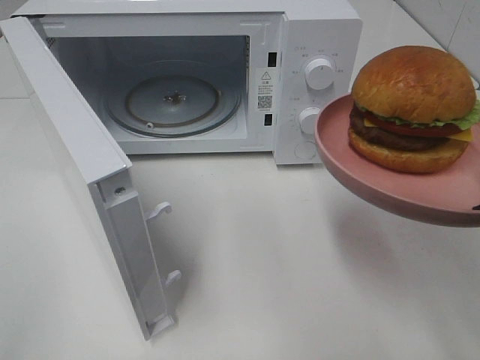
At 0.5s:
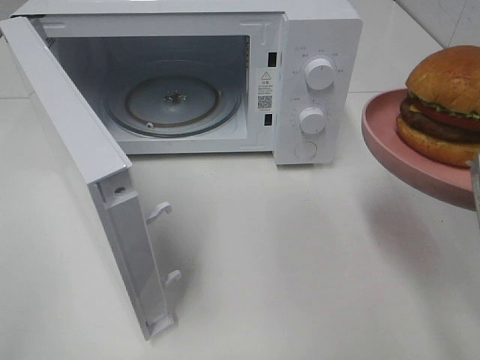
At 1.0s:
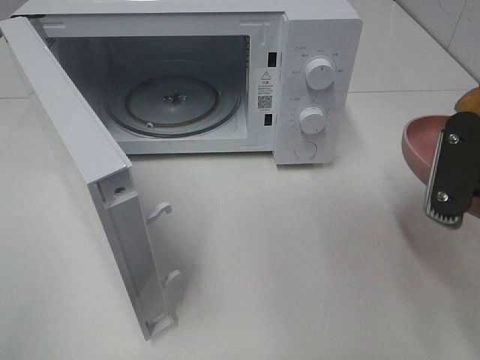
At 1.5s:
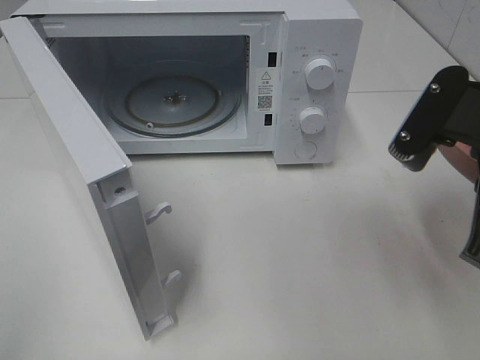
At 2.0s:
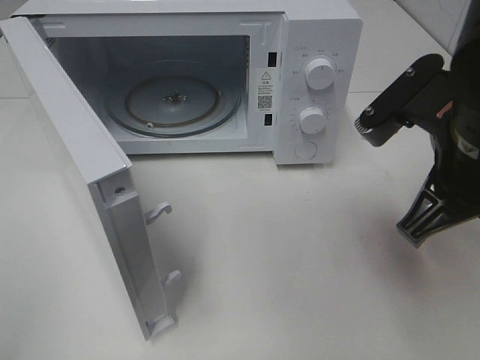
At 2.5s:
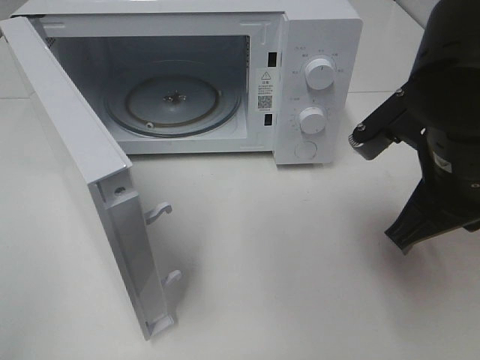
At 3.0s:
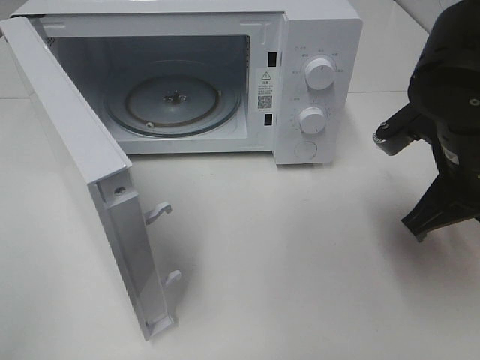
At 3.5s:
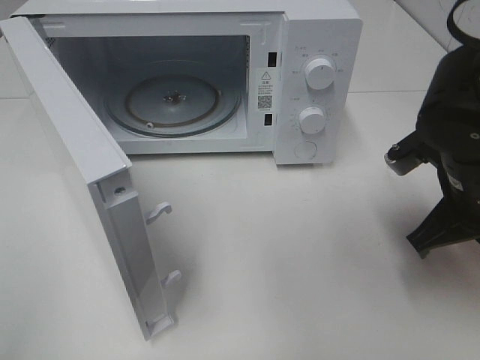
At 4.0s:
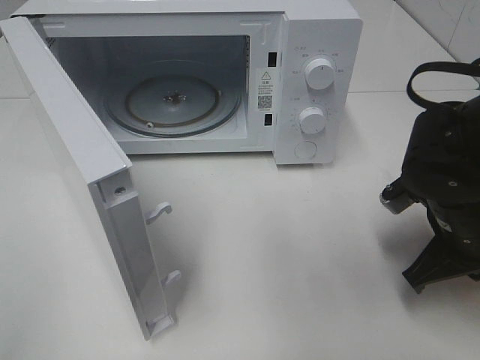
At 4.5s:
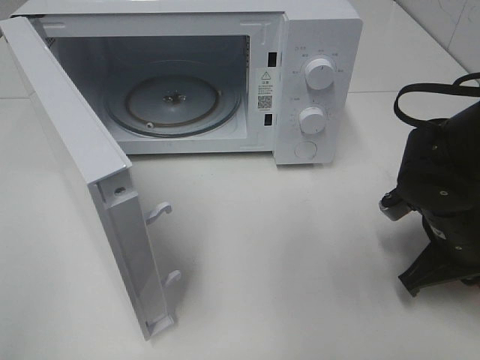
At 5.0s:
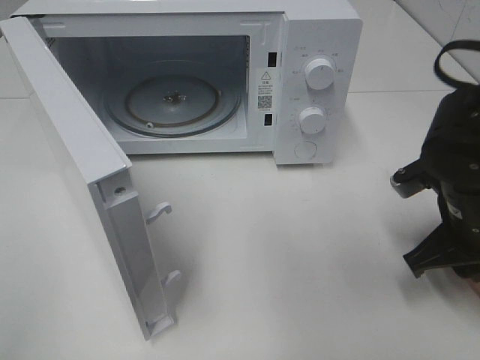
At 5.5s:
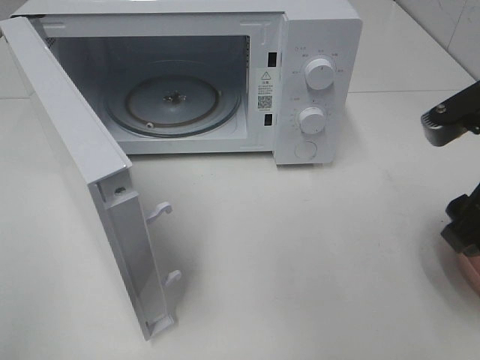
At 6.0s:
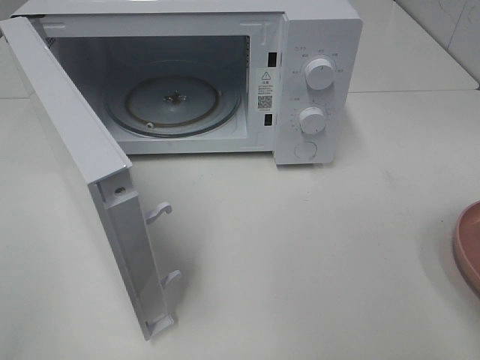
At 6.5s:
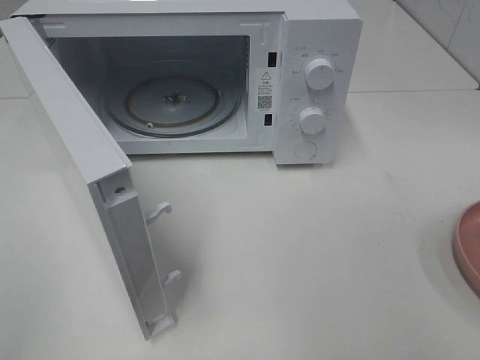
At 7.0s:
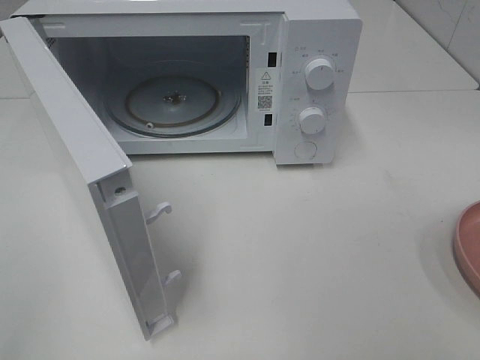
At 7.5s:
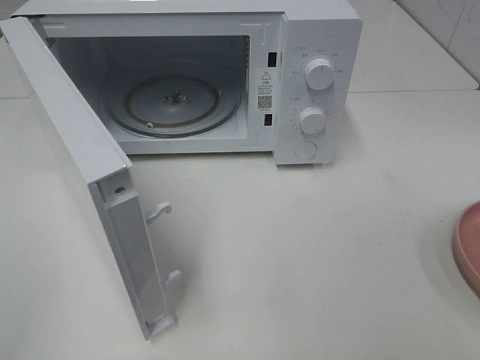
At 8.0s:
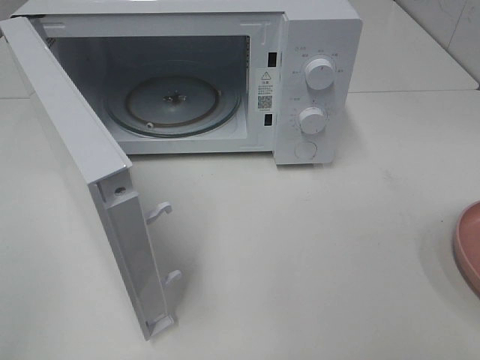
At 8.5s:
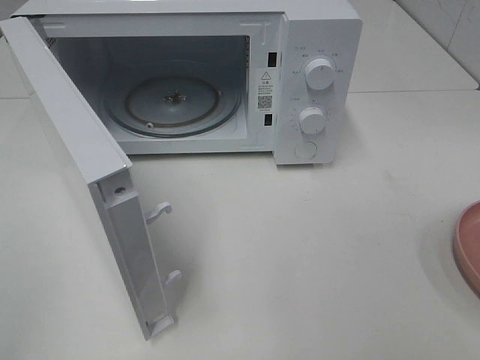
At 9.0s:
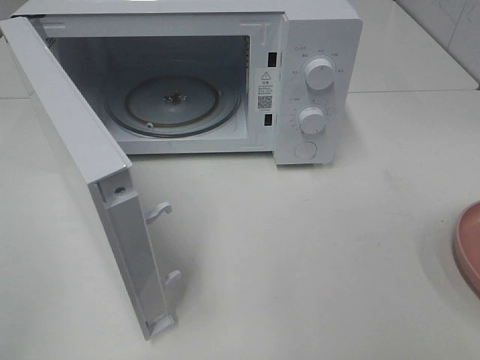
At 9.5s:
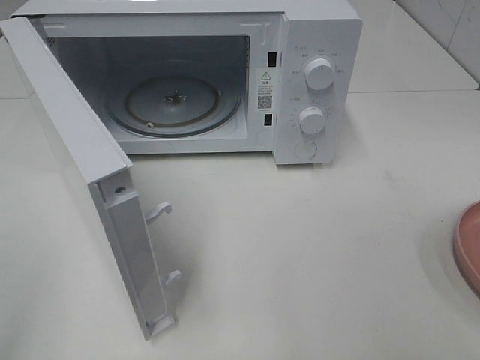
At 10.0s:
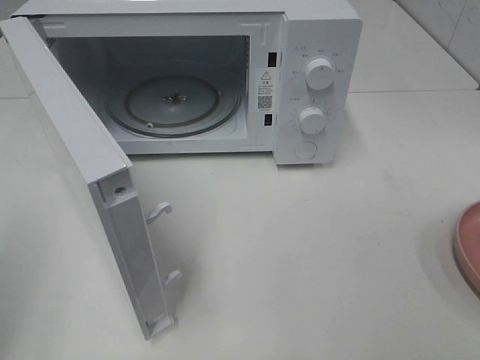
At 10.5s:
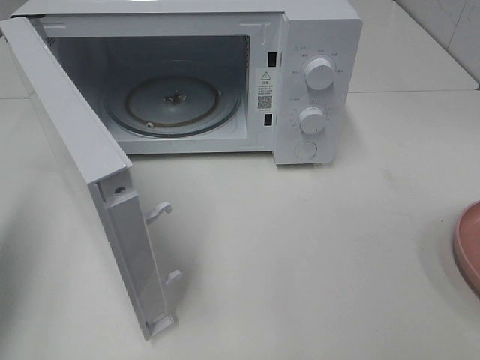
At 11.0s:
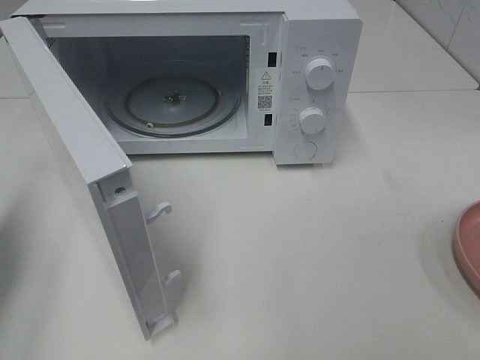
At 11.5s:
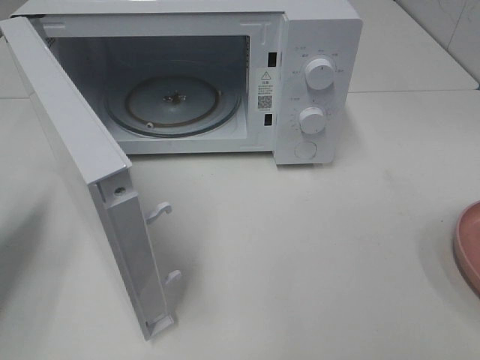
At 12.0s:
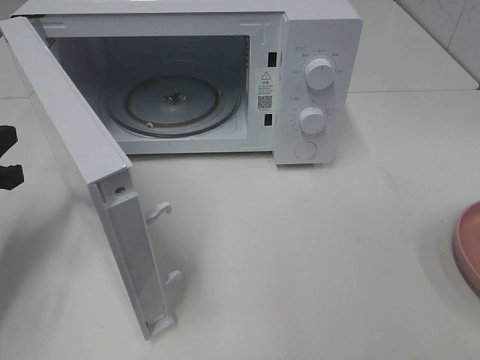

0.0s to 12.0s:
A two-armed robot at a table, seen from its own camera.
Task of the whole recording: Heat the burger.
Step, 0.0s to 5.0s: Right hand: place the plate on the table.
0.0s to 2.0s: The right gripper goes about 10 cm forward and to the left.
2.0s to 4.0s: The right gripper shifts roughly 10 cm downward.
4.0s to 6.0s: The right gripper moves upward and backward, some 20 cm, and opens its fingers.
10.0s to 12.0s: The left gripper goes some 25 cm forward and downward.

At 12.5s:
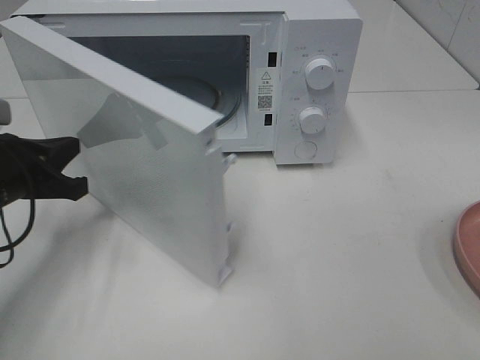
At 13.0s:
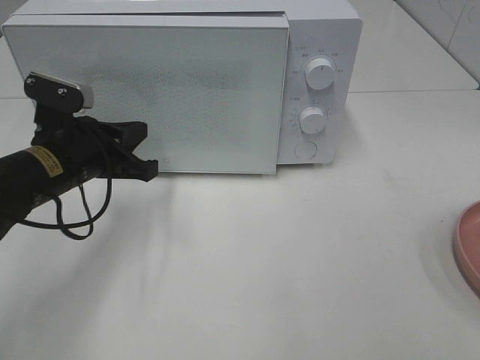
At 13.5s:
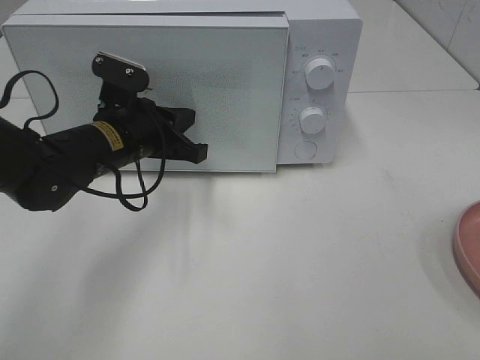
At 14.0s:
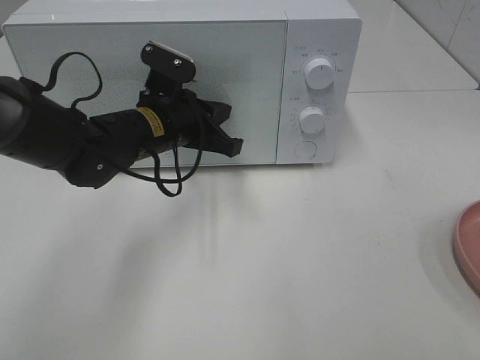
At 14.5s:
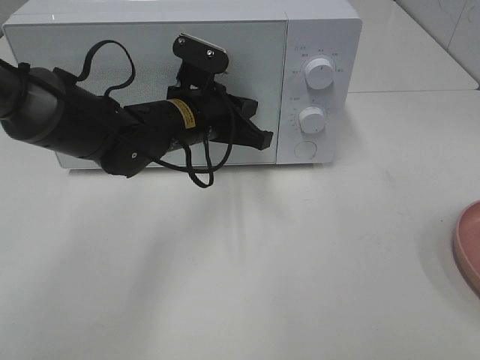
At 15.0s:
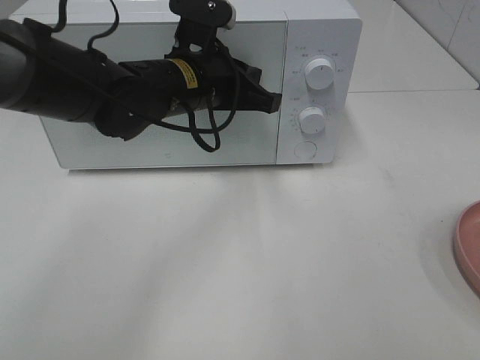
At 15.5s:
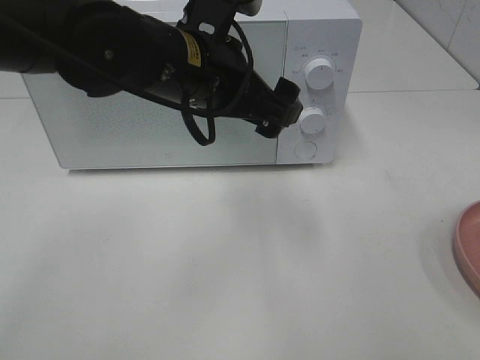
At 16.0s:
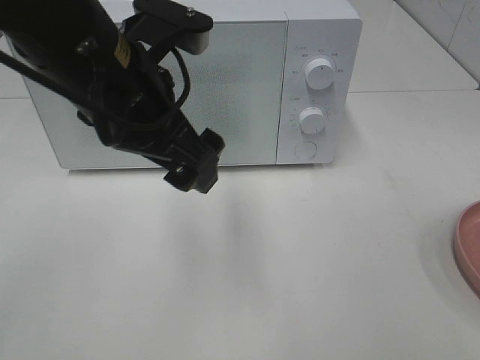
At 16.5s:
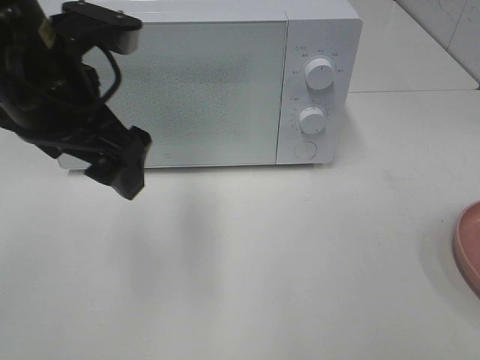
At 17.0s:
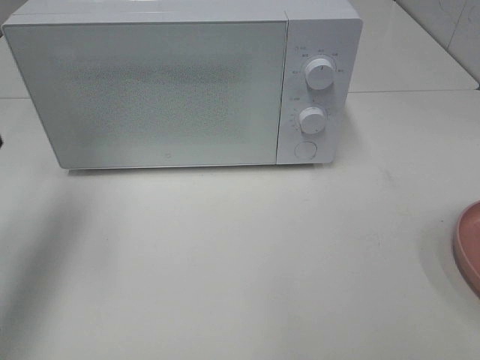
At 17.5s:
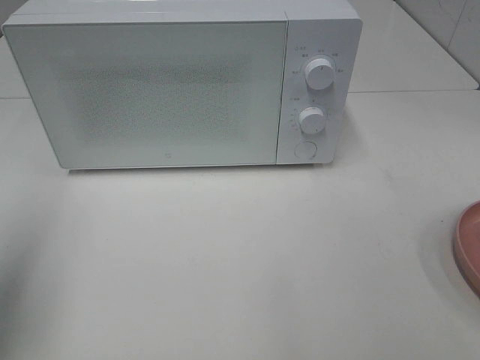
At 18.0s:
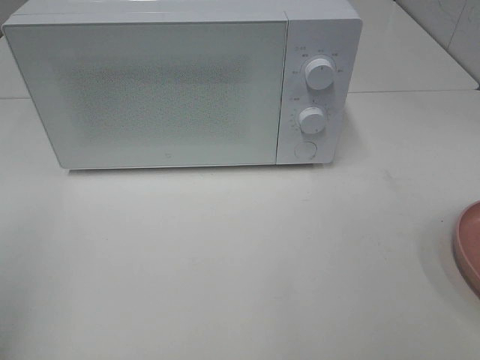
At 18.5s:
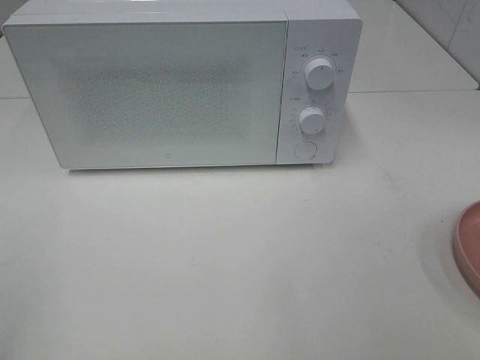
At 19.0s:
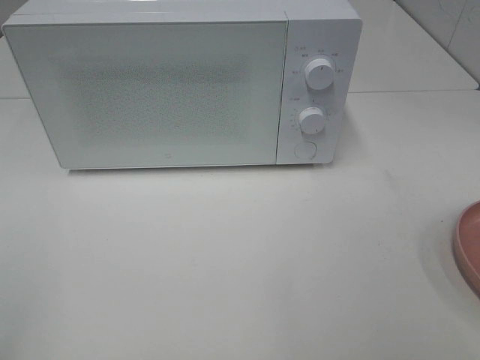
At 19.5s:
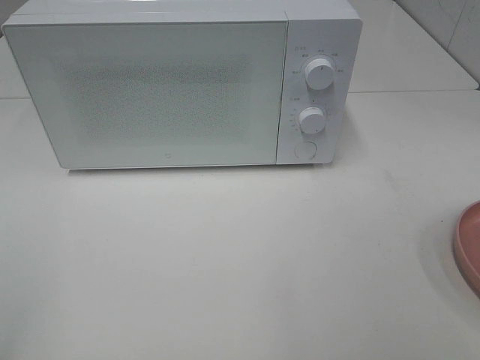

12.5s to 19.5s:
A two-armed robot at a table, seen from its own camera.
Task of the whole recording: Heat the burger.
Step, 12.5s to 15.0s: Left hand: close the microwave door.
12.5s to 14.5s: The left gripper shifts approximately 20 cm to the right and forward.
14.5s to 16.0s: The left gripper goes about 15 cm upward and backward, and opens its fingers.
16.0s to 17.5s: The left gripper goes roughly 25 cm to the left.
17.5s to 19.5s: The left gripper goes roughly 15 cm backward.

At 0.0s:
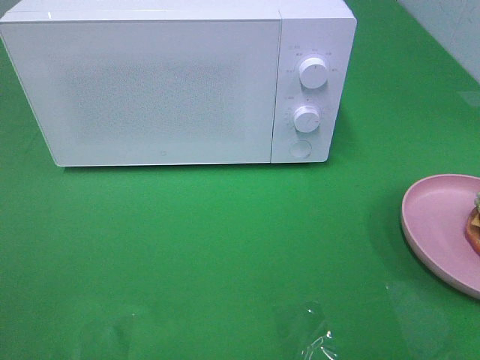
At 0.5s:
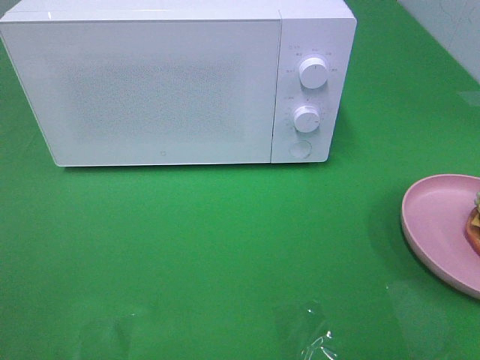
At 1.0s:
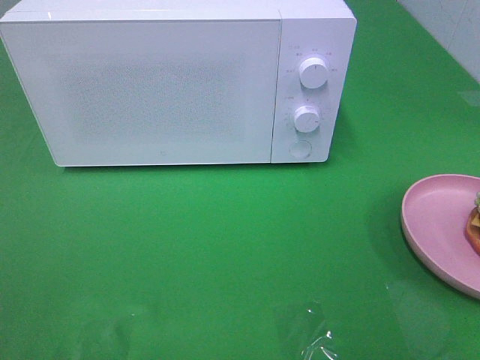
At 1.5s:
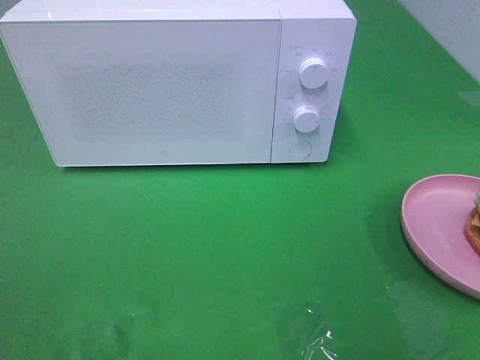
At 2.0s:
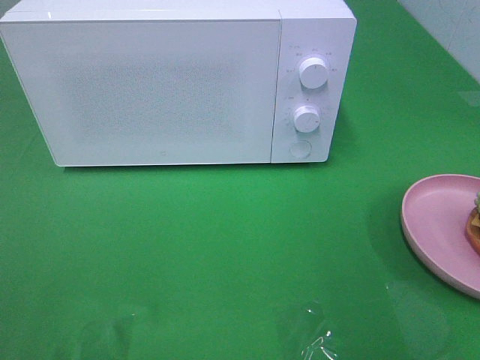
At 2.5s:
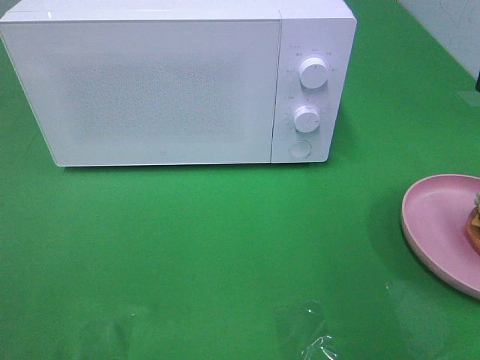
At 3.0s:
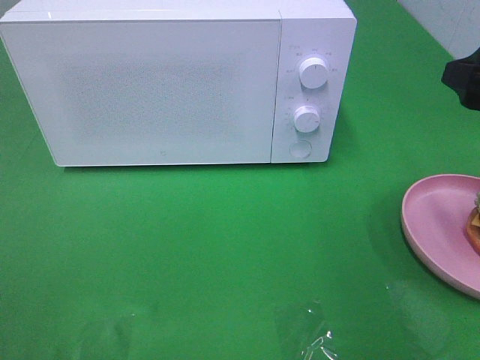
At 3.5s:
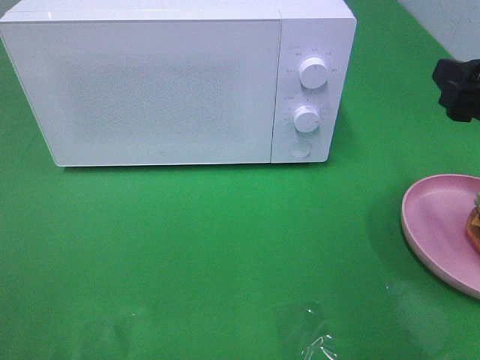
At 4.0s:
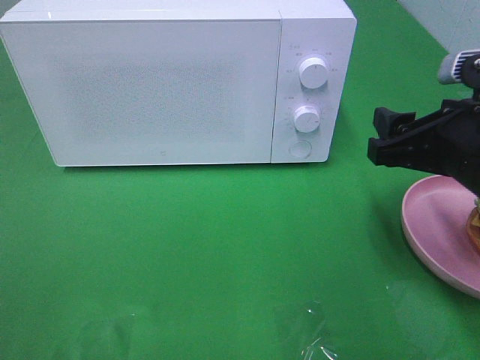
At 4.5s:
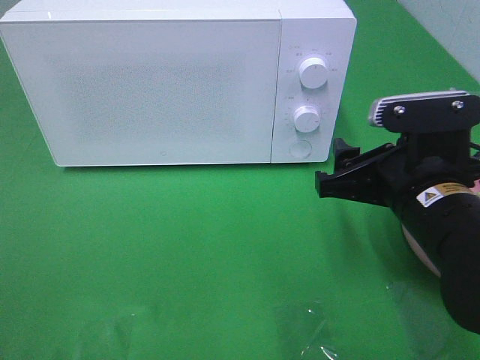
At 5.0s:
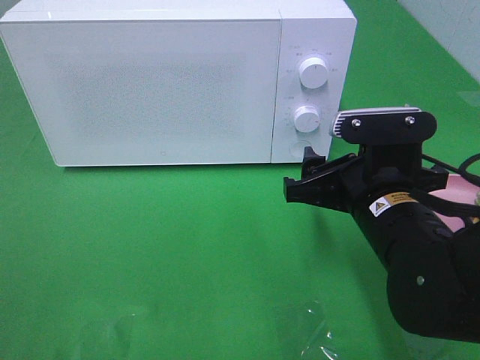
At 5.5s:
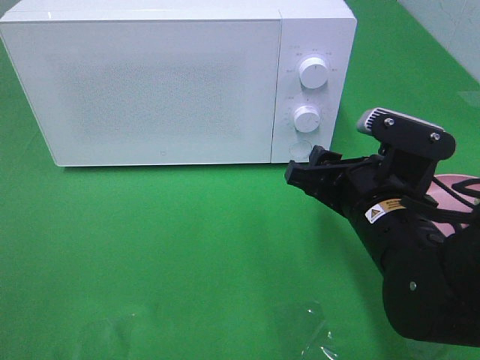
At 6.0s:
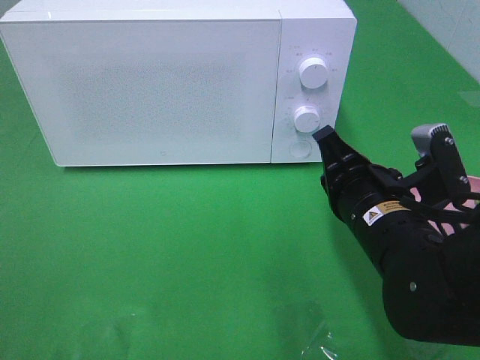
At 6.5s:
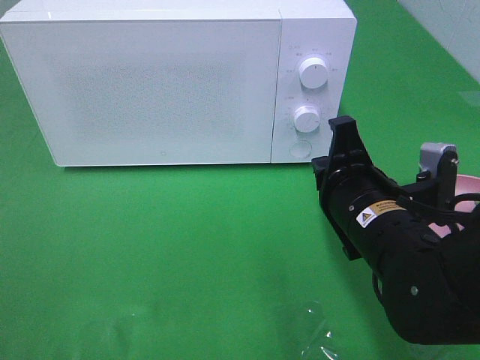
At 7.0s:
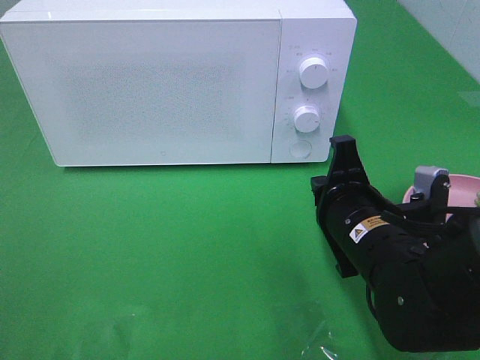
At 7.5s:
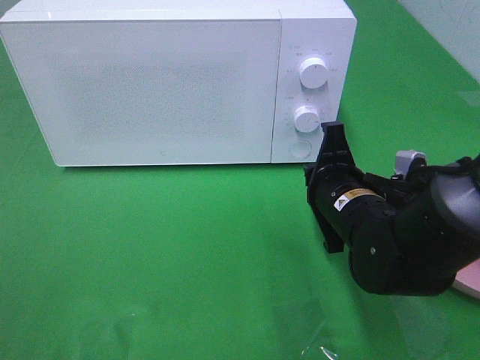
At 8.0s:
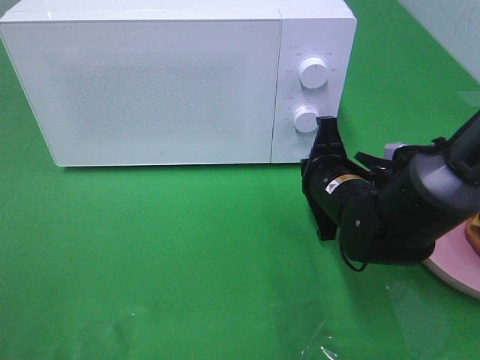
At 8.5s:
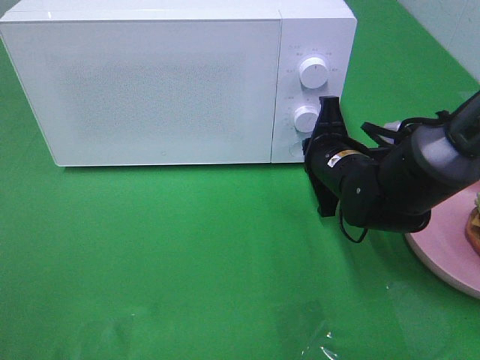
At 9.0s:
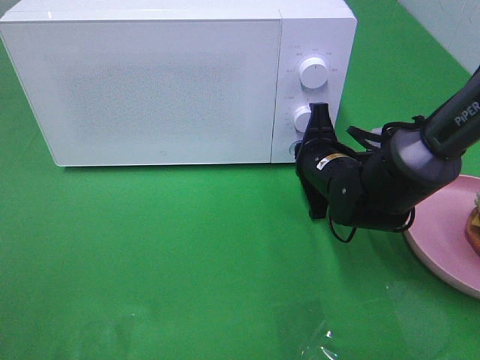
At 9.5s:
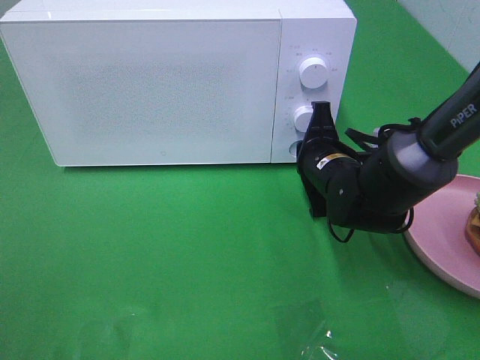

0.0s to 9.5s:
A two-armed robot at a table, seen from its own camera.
Task of the whole recording: Heat the burger.
2.0s to 4.0s: The right gripper goes about 15 cm downward, forward and to the left.
4.0s to 5.5s: The right gripper heads to the left and downward, covering some 10 cm.
5.5s to 7.5s: The right gripper changes place by roughly 5 cm, and closes up.
7.5s to 9.5s: The right gripper moves forward, approximately 10 cm.
